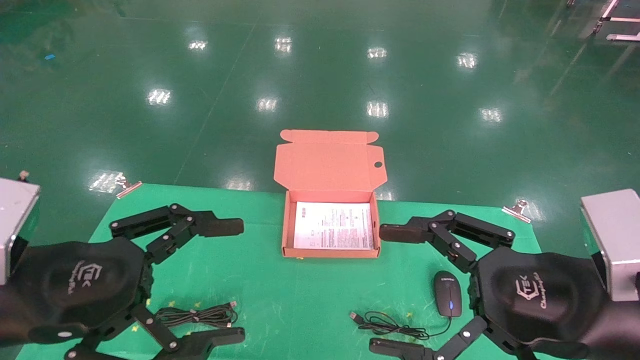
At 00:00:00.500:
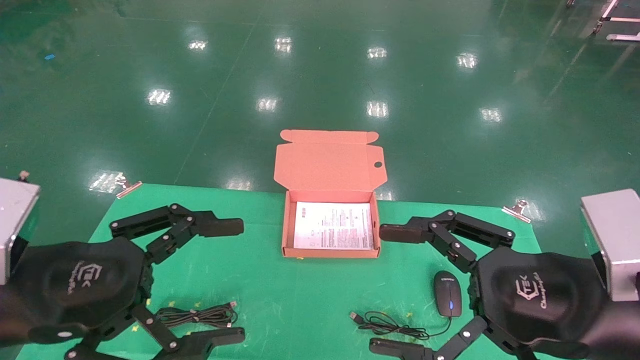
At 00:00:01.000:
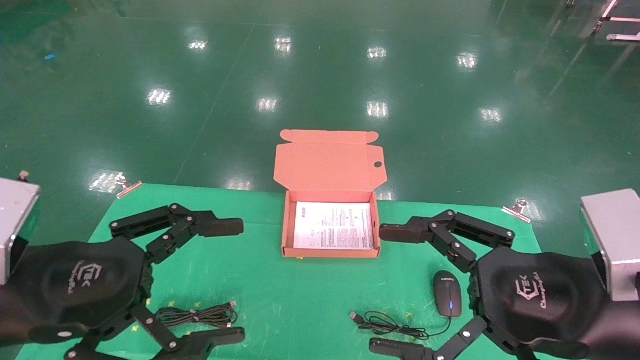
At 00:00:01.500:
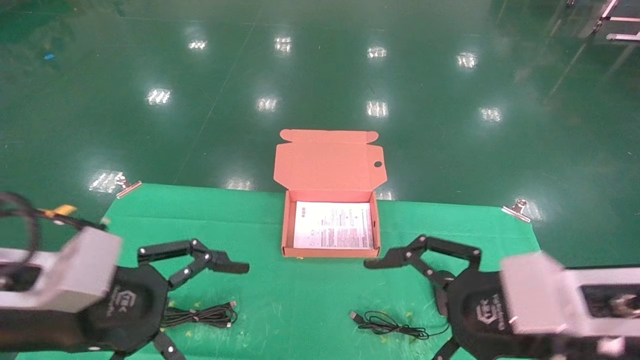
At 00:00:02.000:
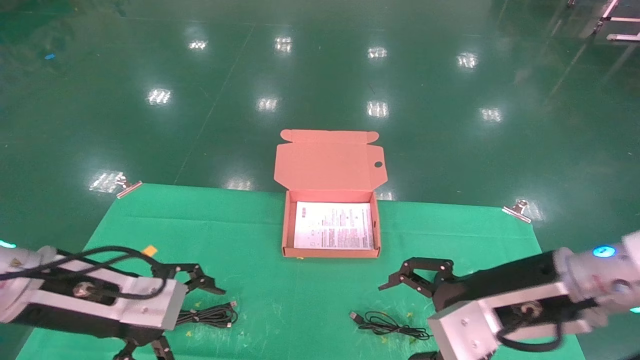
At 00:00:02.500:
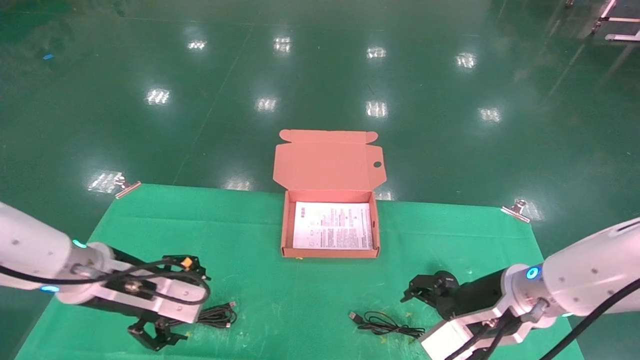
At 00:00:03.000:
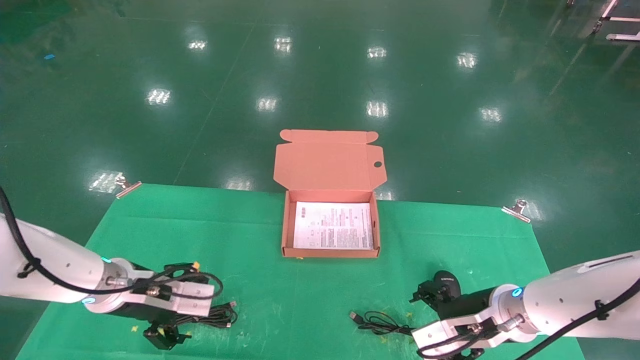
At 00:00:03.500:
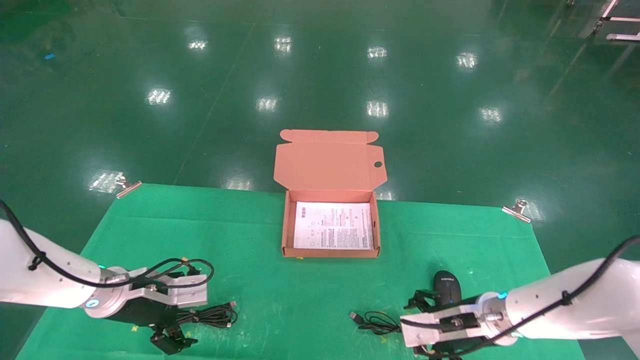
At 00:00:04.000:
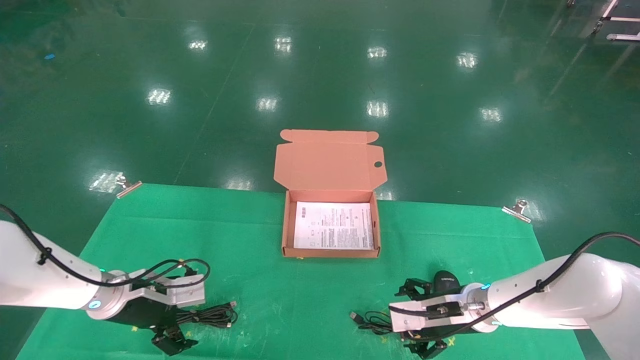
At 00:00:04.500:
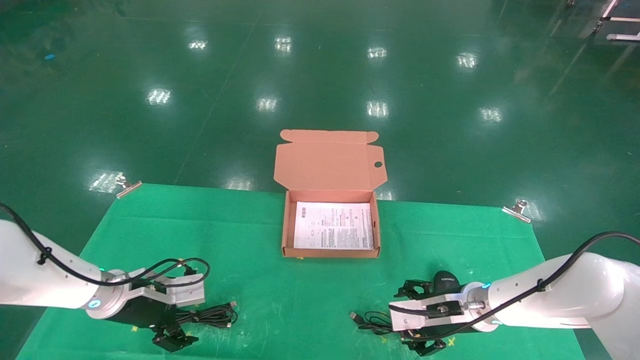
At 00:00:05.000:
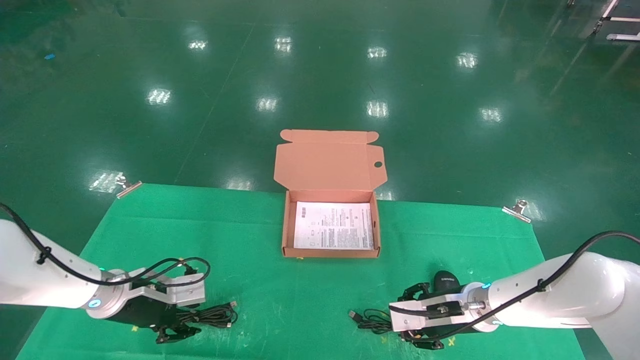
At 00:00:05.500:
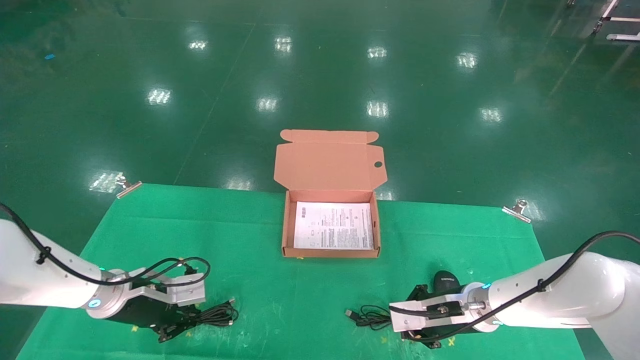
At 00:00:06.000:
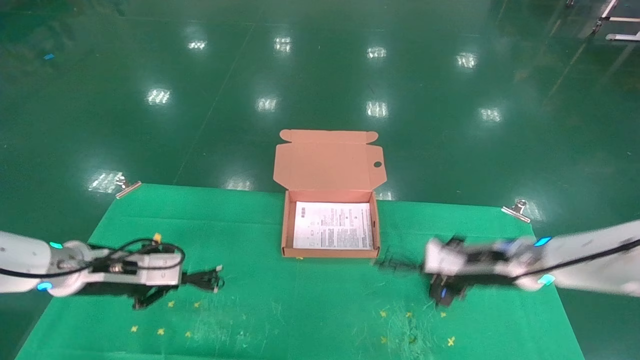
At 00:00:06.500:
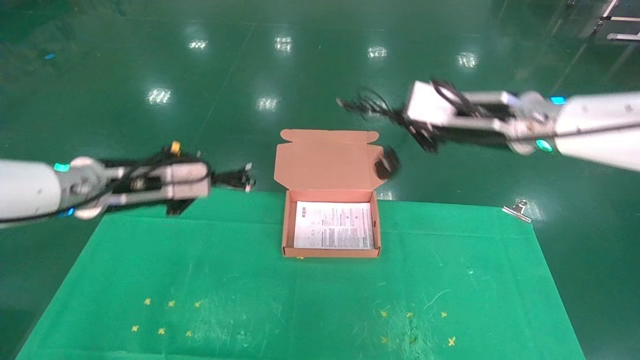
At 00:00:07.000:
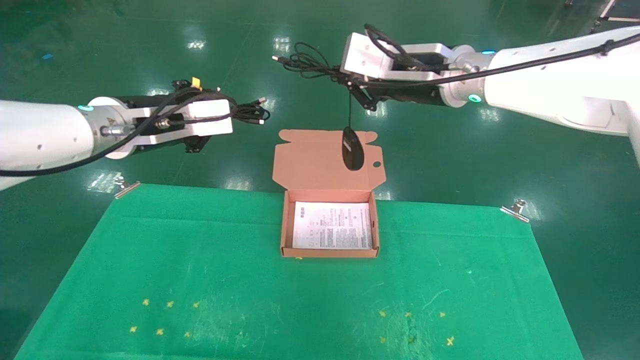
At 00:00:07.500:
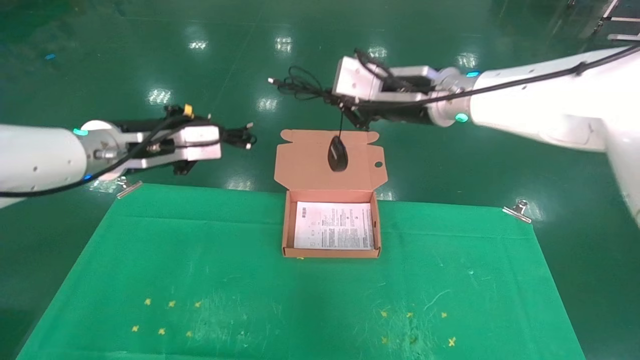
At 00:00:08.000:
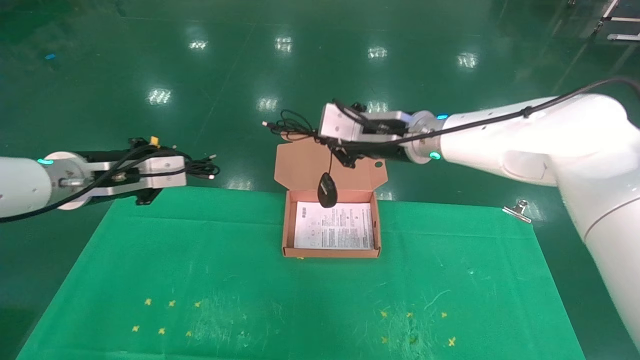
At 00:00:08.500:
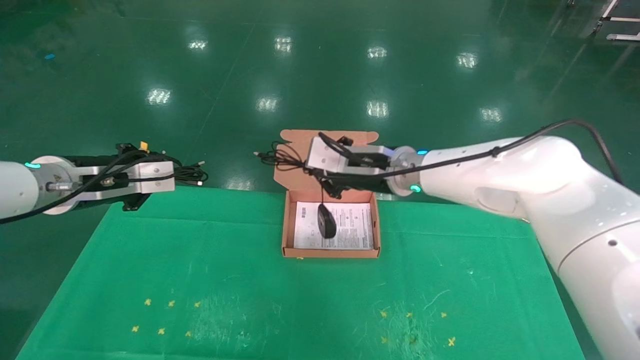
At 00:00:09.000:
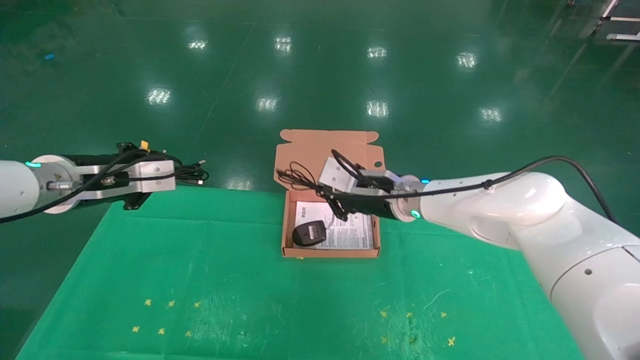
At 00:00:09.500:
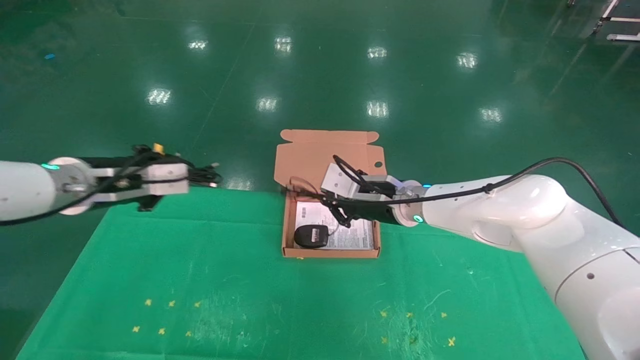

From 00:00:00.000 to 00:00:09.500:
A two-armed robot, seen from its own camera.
Task of the whole recording: grasp data cable left put into box grasp mouse right put into box.
Step, from 00:00:01.500 to 00:00:05.500: Grab and pick up both the mouse and power cord from the accessory packaging area at the same time.
From 00:00:00.000 to 00:00:02.000: The two grippers go approximately 10 cm forward.
From 00:00:02.000 to 00:00:04.000: The left gripper heads forward and downward, covering approximately 20 cm, while the right gripper moves downward and forward, roughly 20 cm.
From 00:00:04.000 to 00:00:05.500: The right gripper closes its fingers, while the left gripper closes its fingers.
From 00:00:05.500 to 00:00:07.500: The grippers both shift upward by approximately 25 cm.
From 00:00:07.500 to 00:00:09.500: The right gripper is displaced downward by roughly 15 cm. Meanwhile the left gripper shifts roughly 5 cm downward.

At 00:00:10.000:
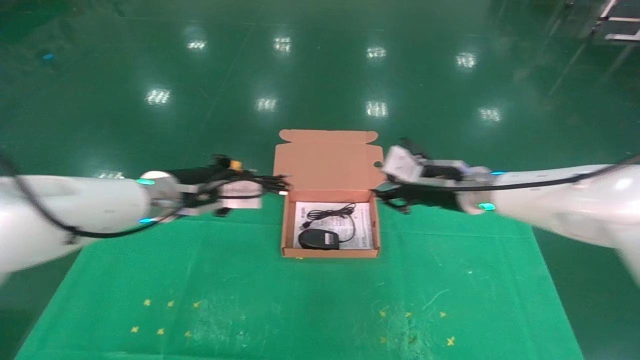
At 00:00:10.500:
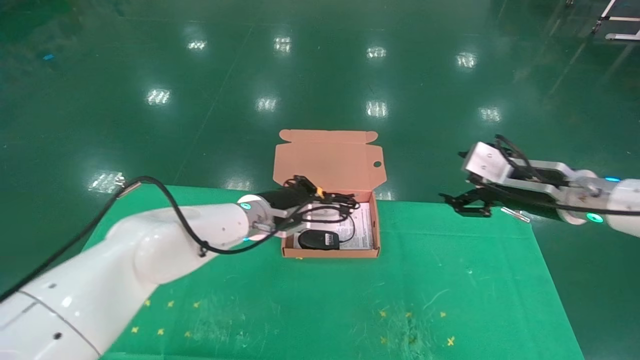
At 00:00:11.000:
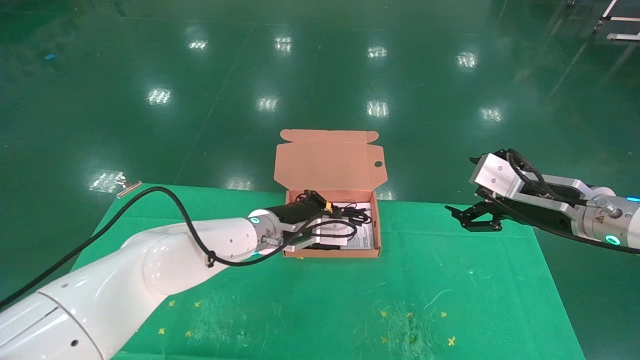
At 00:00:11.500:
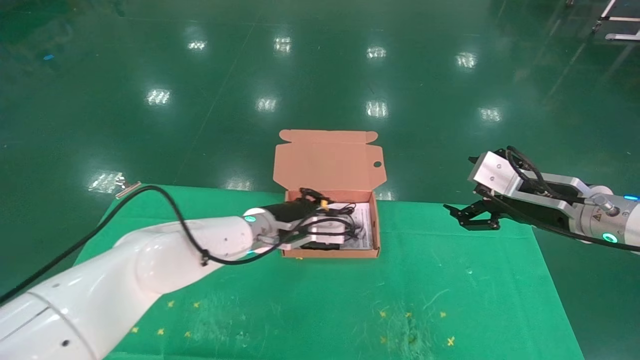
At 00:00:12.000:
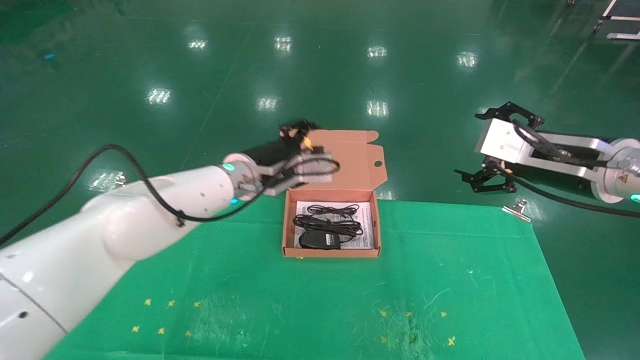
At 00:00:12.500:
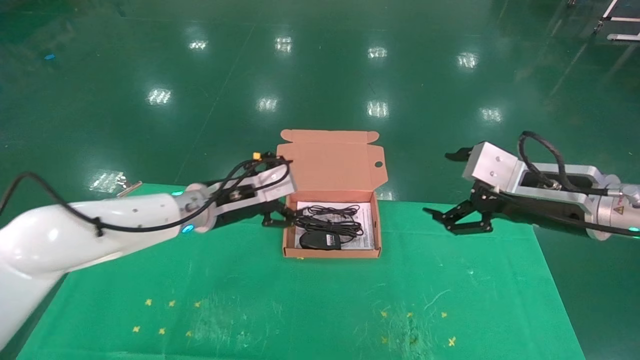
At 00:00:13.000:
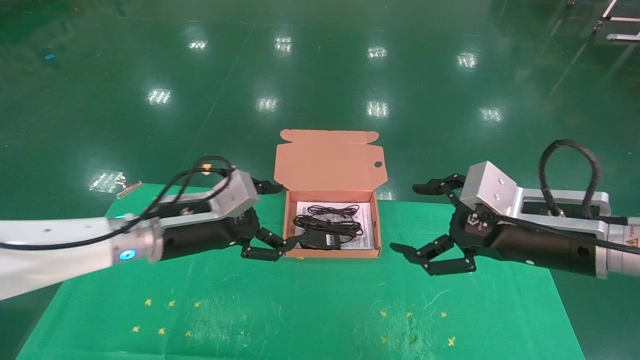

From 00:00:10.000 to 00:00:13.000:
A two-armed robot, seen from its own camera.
Task of the whole recording: grasp data cable left put into box grasp mouse right put into box.
From 00:00:10.000 to 00:00:11.500: The right gripper shifts approximately 10 cm backward and to the right, and opens its fingers. The left gripper travels to the right by about 10 cm.
From 00:00:11.500 to 00:00:13.000: The left gripper heads to the left and backward, covering approximately 15 cm, and opens. Meanwhile the right gripper shifts some 5 cm backward.
